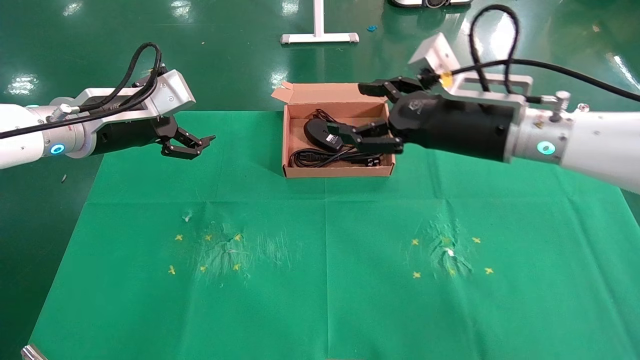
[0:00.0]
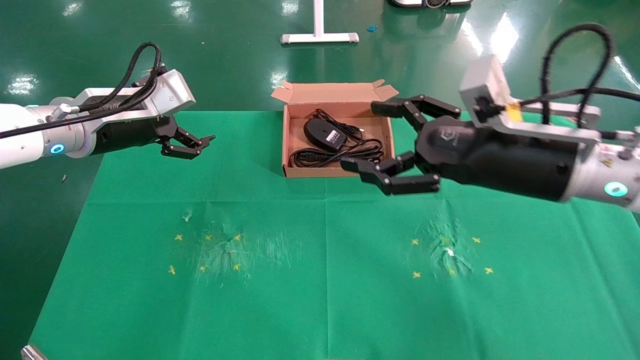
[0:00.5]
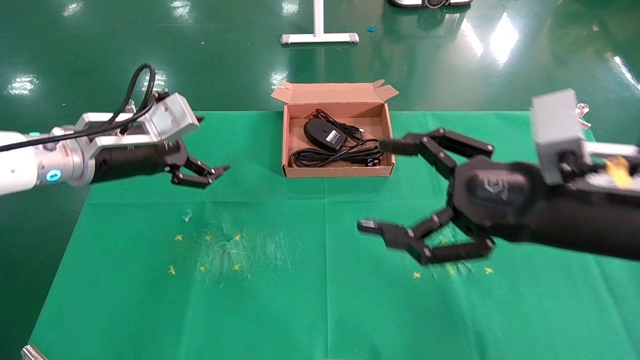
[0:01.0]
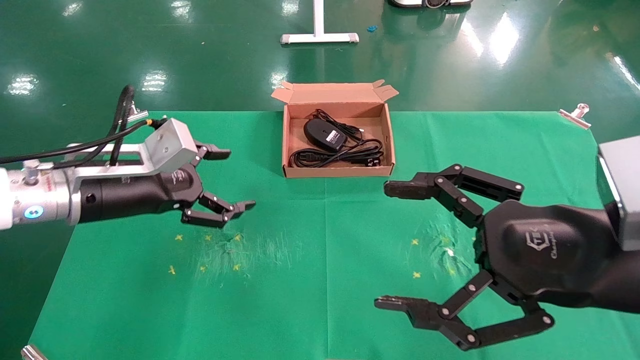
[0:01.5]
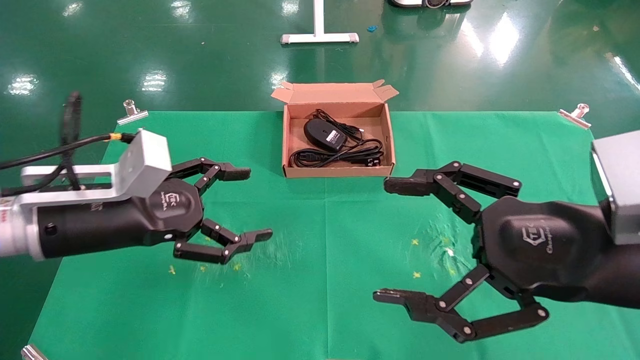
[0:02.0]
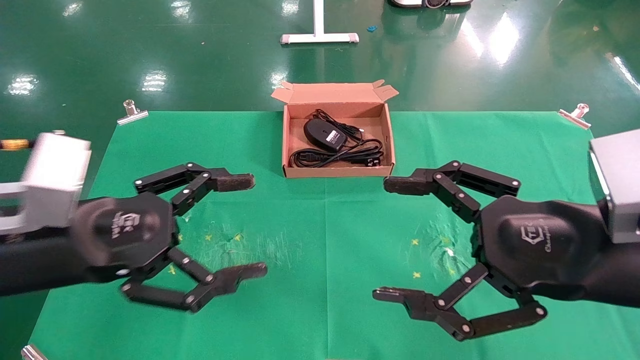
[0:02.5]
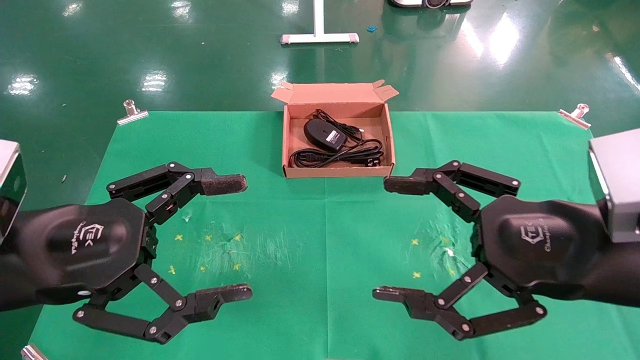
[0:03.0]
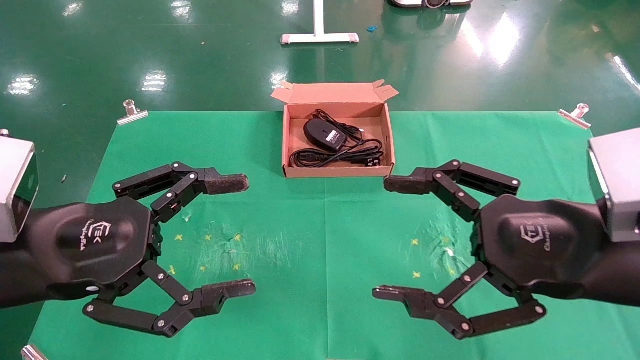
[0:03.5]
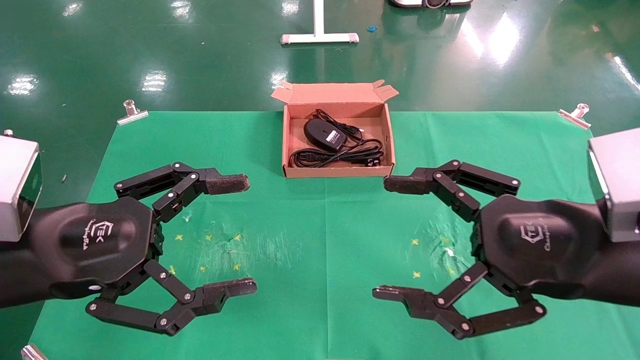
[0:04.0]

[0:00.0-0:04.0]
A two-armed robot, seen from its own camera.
Task of the whole recording: grasp data cable left put into box grasp mouse right put into box.
0:00.0 to 0:02.0: The left gripper shifts approximately 15 cm backward and downward, while the right gripper travels backward by roughly 15 cm.
0:02.0 to 0:04.0: The left gripper heads backward, covering some 10 cm.

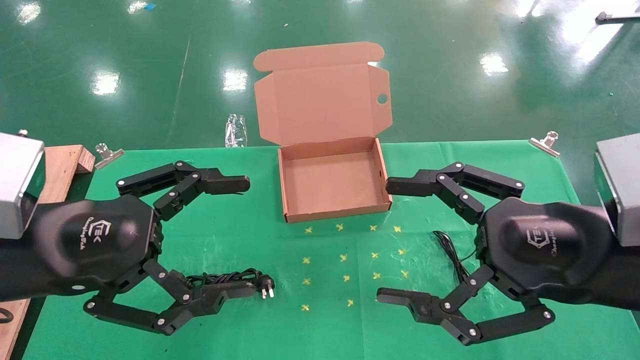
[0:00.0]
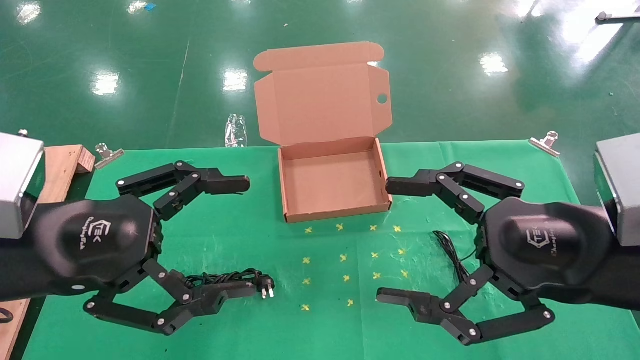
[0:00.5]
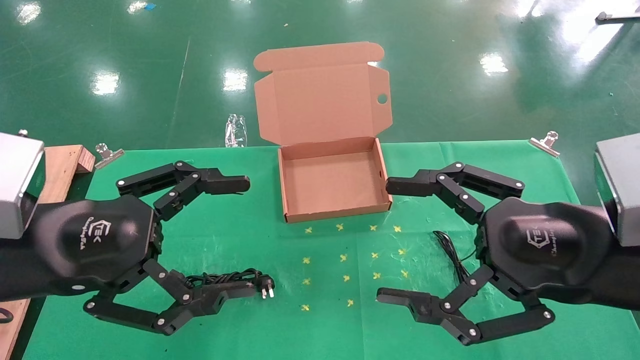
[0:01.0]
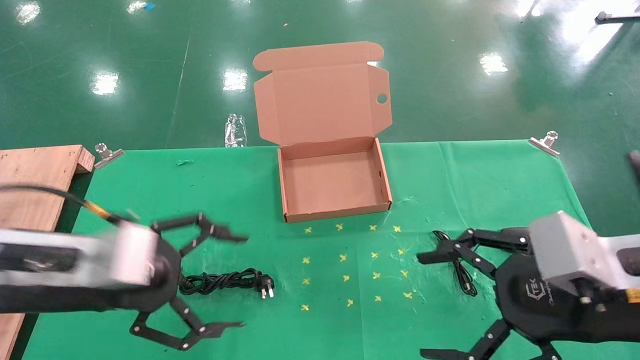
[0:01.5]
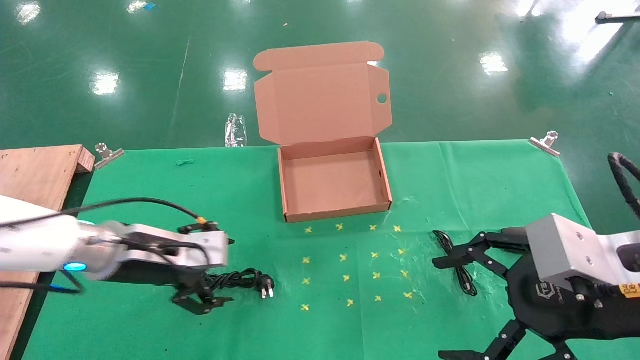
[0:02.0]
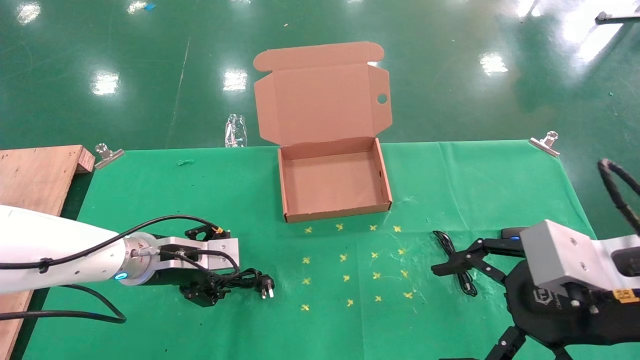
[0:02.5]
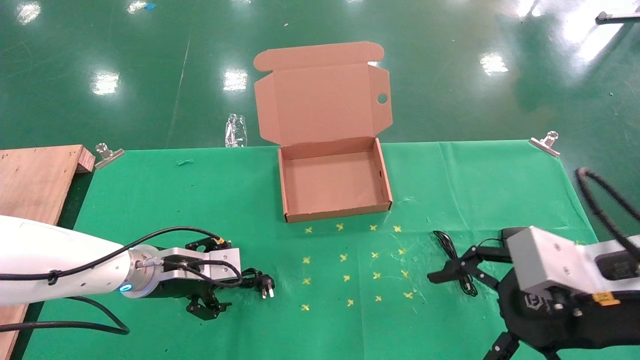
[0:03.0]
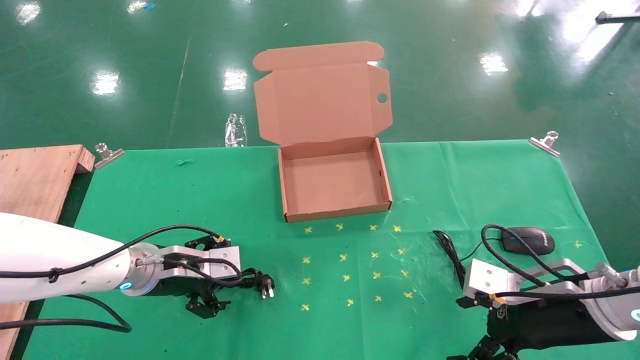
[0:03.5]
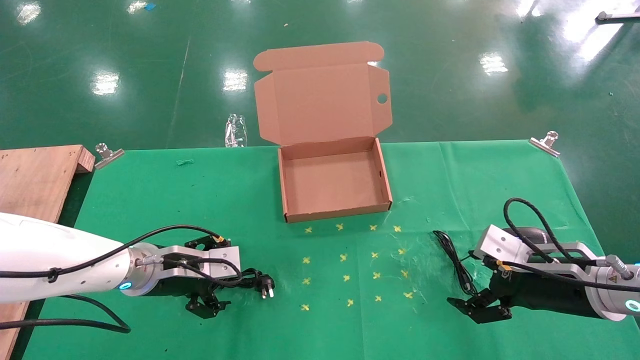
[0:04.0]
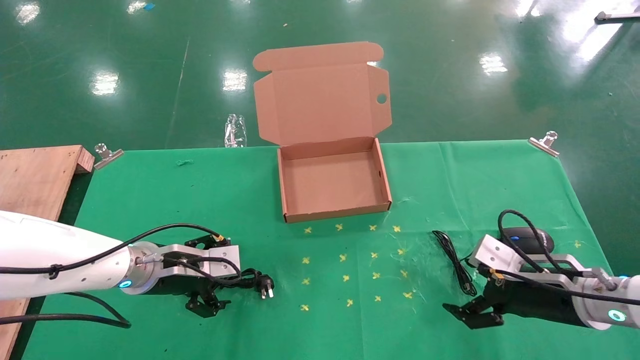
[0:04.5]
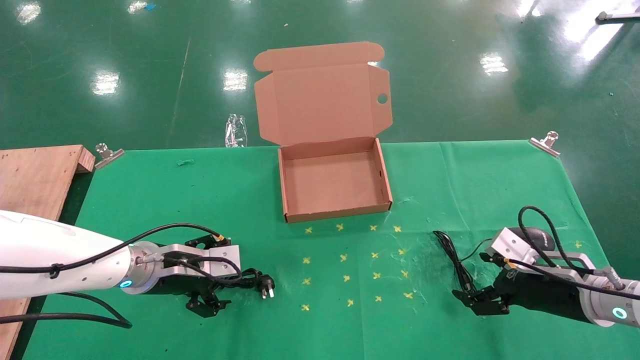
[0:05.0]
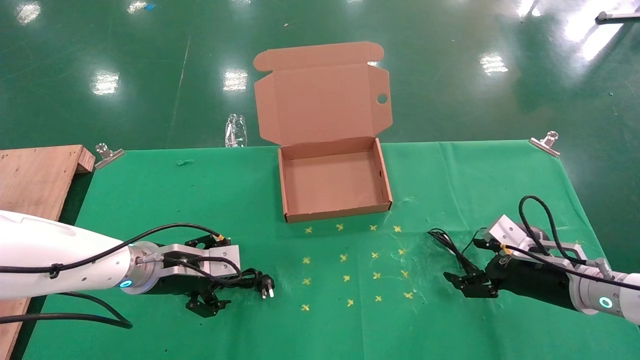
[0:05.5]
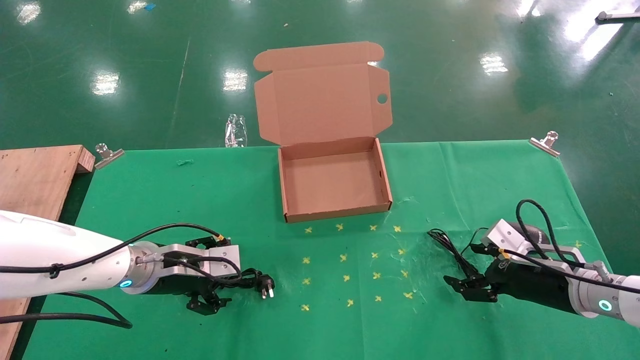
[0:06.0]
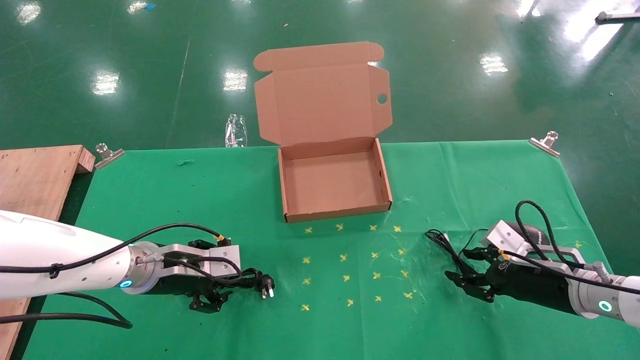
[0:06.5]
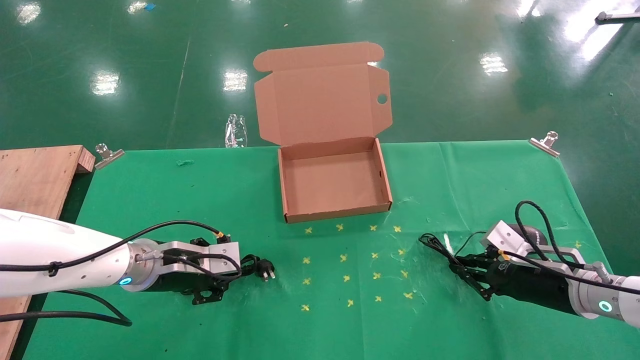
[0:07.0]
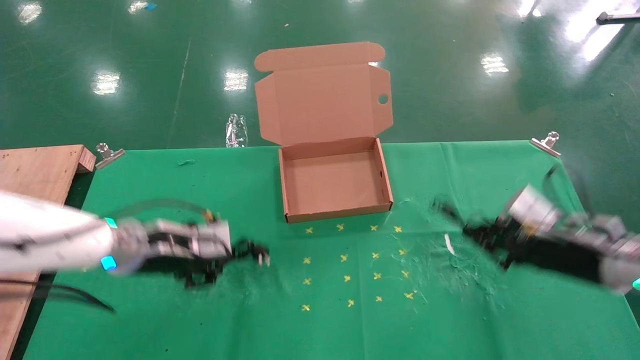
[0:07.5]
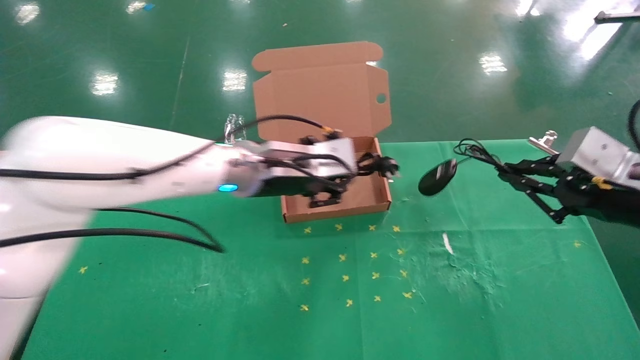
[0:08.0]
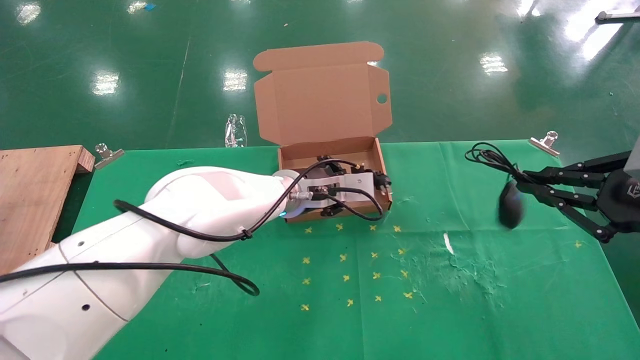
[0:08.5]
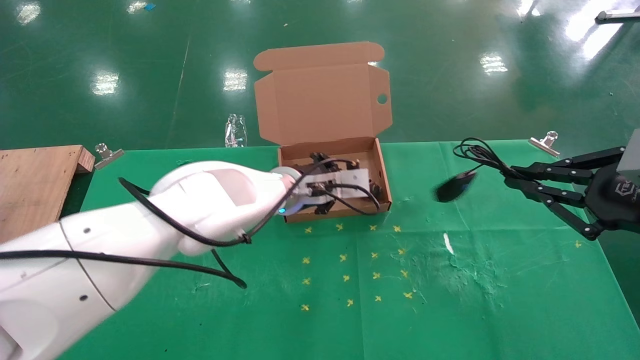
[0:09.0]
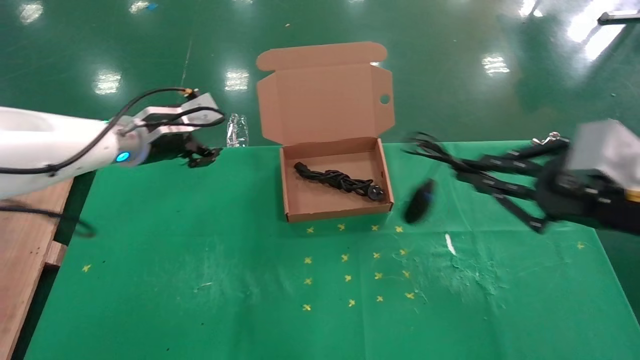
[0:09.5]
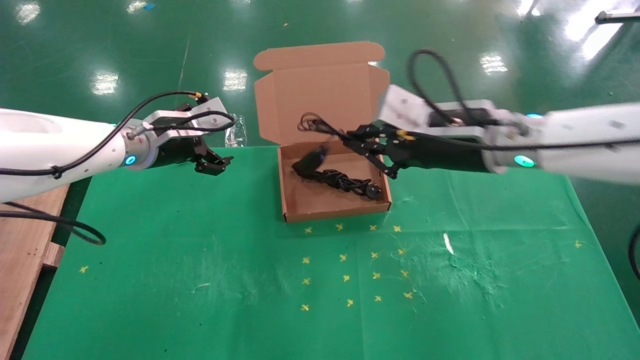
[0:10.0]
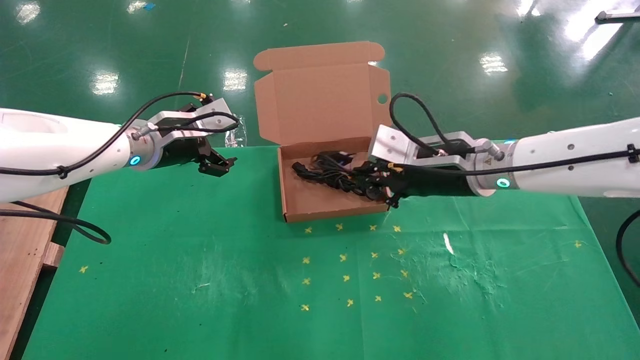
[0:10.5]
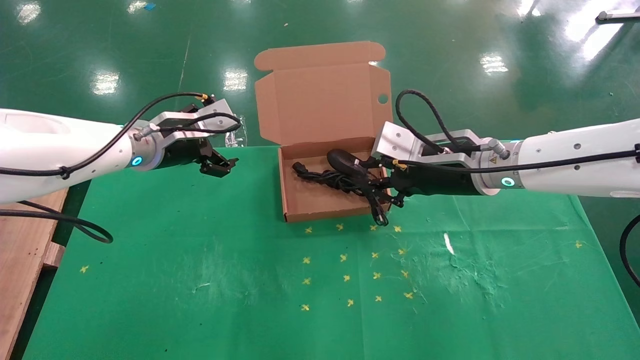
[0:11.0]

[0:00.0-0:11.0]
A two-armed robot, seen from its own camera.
Task of the whole recording: grasp data cable left put into box grasp mouse right put into box.
Step, 0:01.5 to 0:07.0: Simultaneously pick up the mouse and power cord from the accessory packaging area.
Step, 0:07.5 to 0:11.0: Place the mouse and power cord into the box.
0:00.0 to 0:02.0: The left gripper heads forward and downward, covering roughly 15 cm.
0:02.0 to 0:03.5: The right gripper shifts roughly 15 cm downward and forward. Meanwhile the left gripper is displaced downward by about 5 cm.
0:03.5 to 0:05.5: The right gripper moves forward and downward, about 10 cm.
0:05.5 to 0:07.5: Both grippers travel together upward, some 5 cm. The right gripper closes up. The left gripper closes up.
0:07.5 to 0:09.0: The right gripper heads upward and backward, covering some 15 cm; the left gripper goes roughly 20 cm to the right and forward.
0:09.0 to 0:11.0: The left gripper is displaced to the left by some 20 cm, and opens up. The right gripper heads to the left and forward, covering some 25 cm.

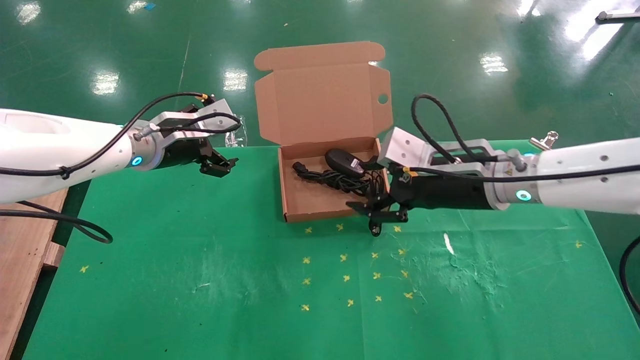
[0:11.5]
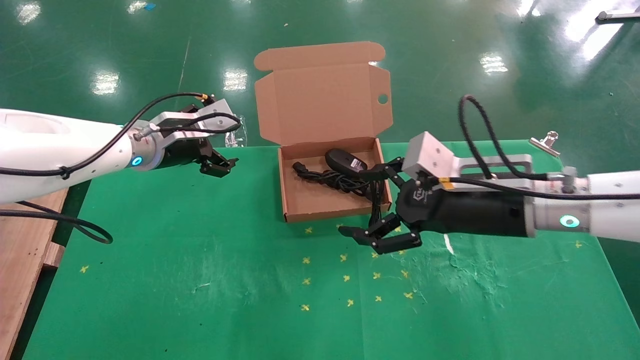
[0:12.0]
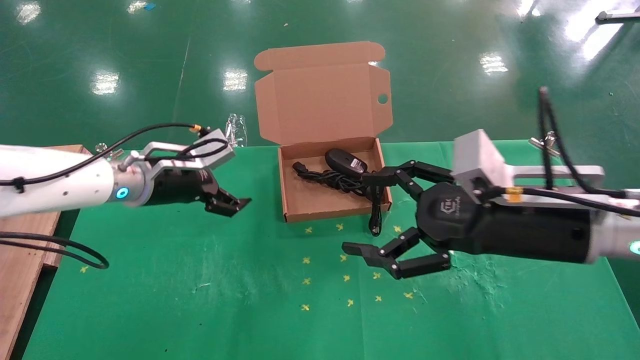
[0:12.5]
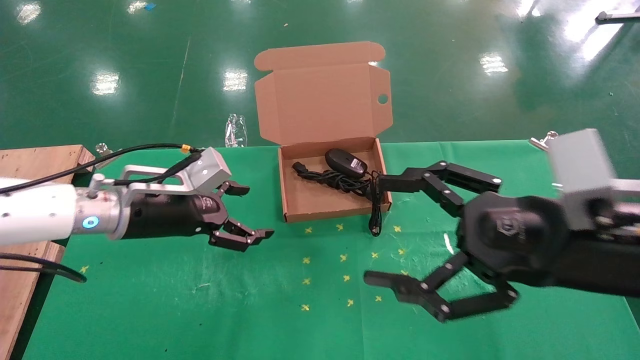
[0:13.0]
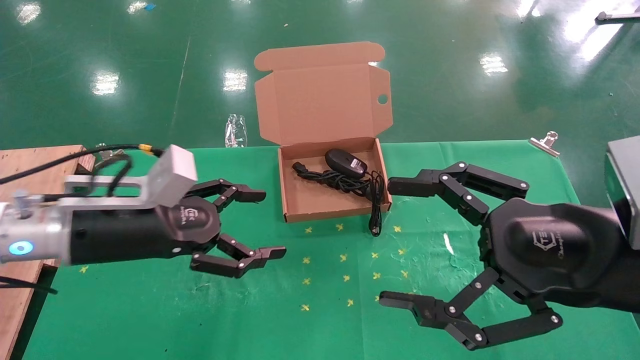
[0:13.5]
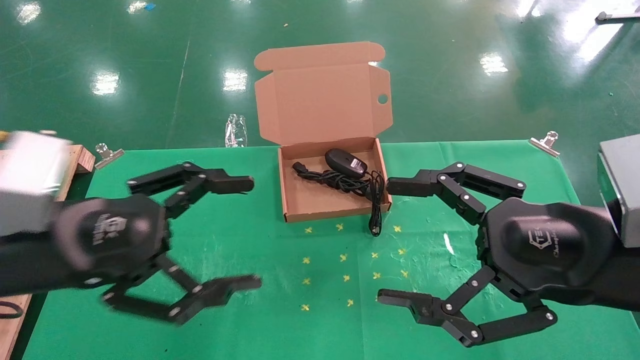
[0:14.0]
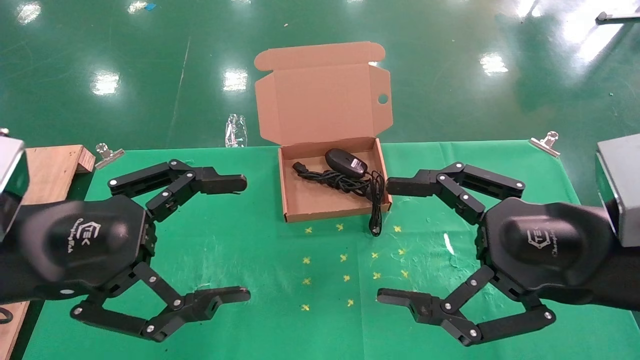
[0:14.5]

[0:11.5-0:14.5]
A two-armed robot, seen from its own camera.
Task of the whole recording: grasp data cable left put into box grasp mouse right put into box.
0:11.5 to 0:13.0: The right gripper moves backward, approximately 15 cm, and opens, while the left gripper travels backward and downward by approximately 10 cm.
0:13.0 to 0:14.5: The left gripper heads backward, covering roughly 15 cm.
